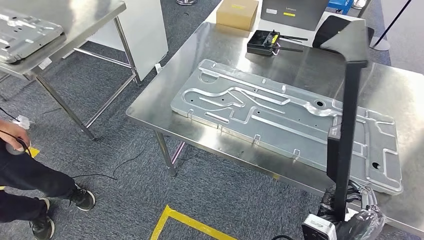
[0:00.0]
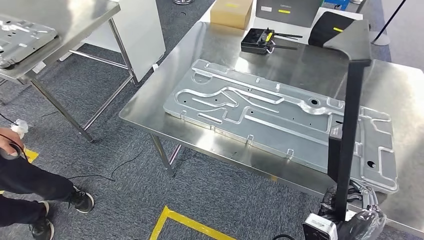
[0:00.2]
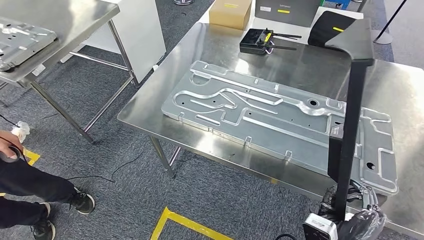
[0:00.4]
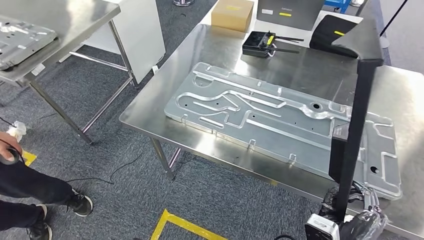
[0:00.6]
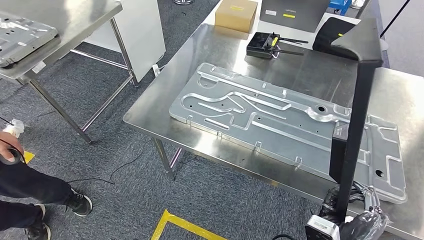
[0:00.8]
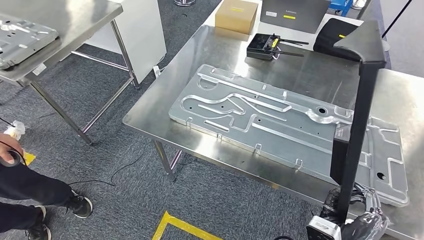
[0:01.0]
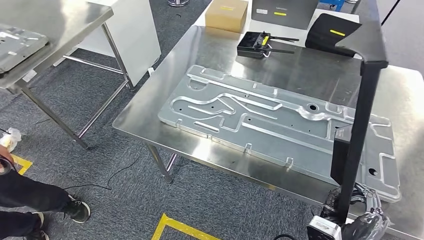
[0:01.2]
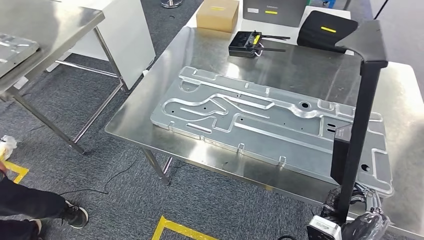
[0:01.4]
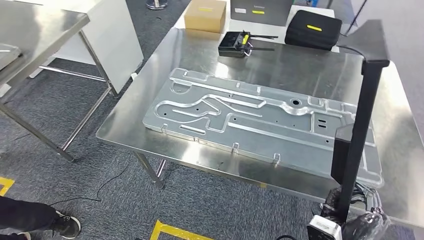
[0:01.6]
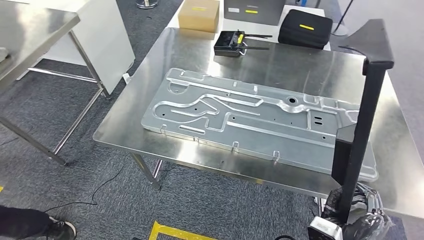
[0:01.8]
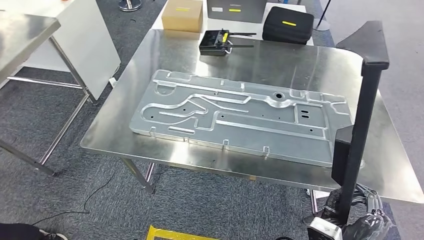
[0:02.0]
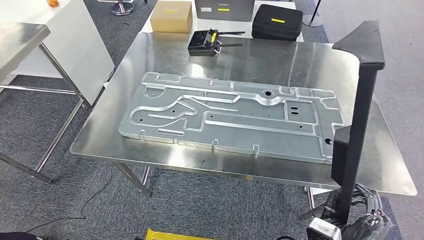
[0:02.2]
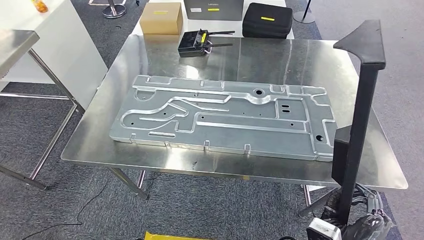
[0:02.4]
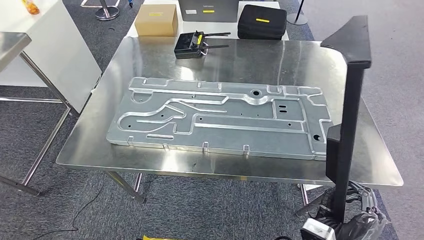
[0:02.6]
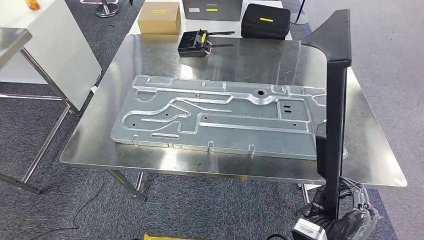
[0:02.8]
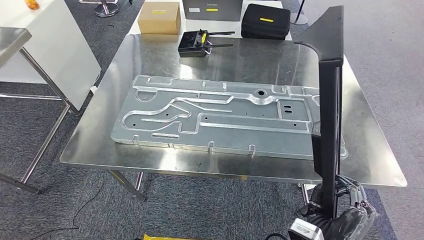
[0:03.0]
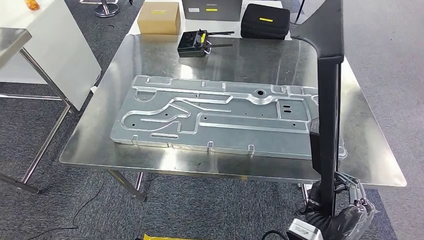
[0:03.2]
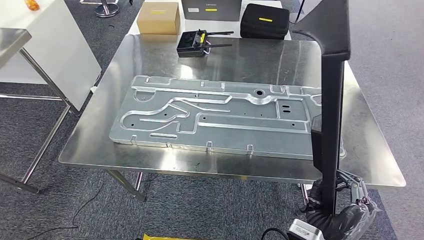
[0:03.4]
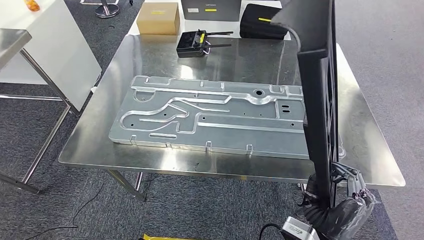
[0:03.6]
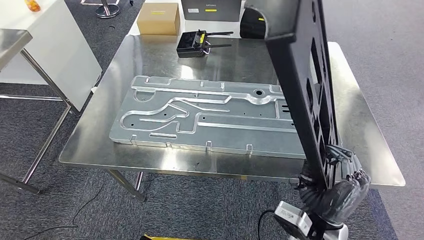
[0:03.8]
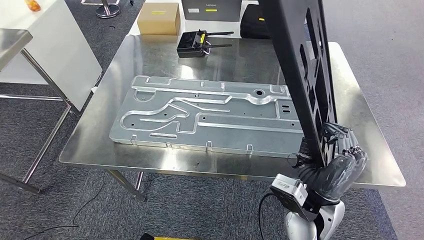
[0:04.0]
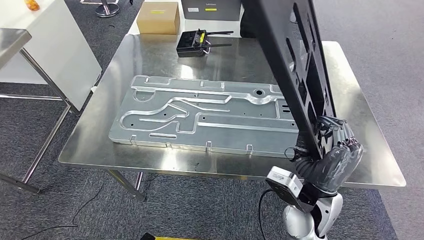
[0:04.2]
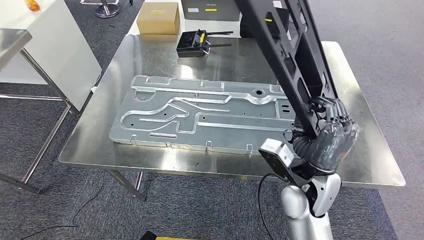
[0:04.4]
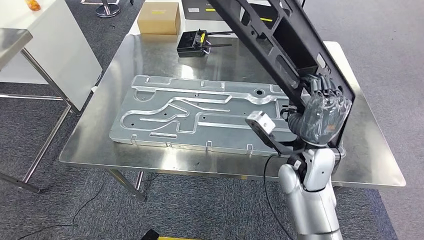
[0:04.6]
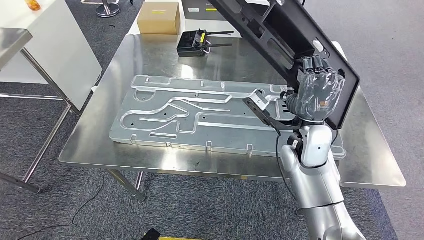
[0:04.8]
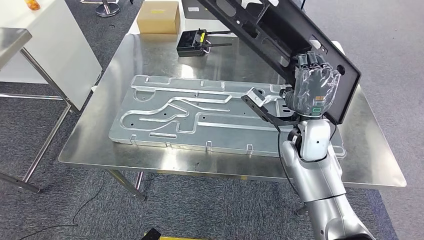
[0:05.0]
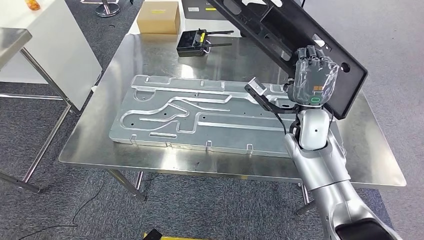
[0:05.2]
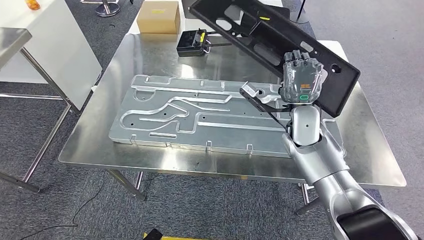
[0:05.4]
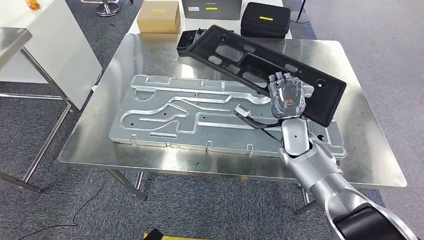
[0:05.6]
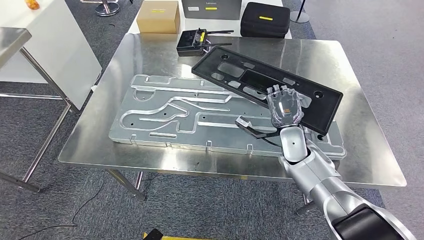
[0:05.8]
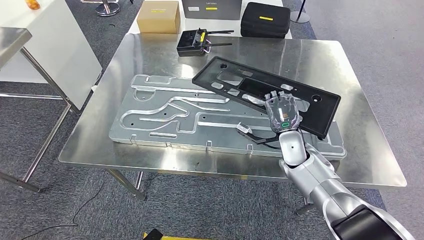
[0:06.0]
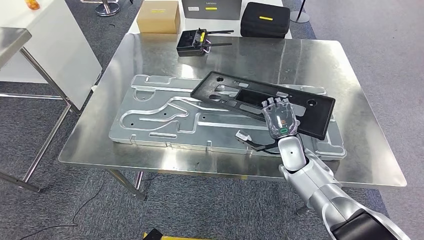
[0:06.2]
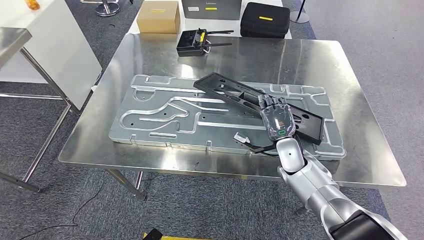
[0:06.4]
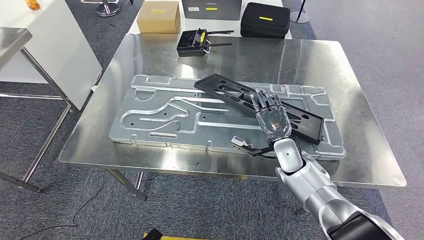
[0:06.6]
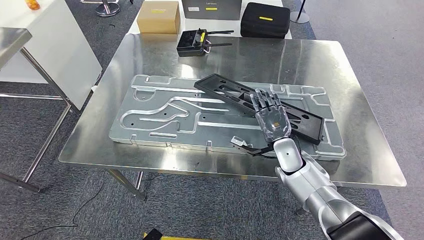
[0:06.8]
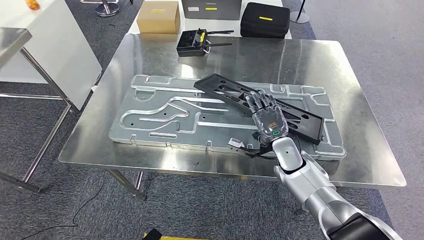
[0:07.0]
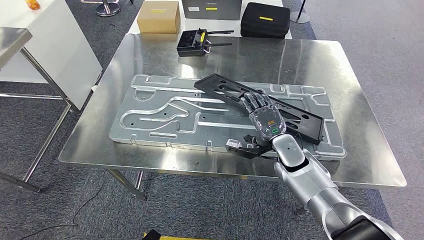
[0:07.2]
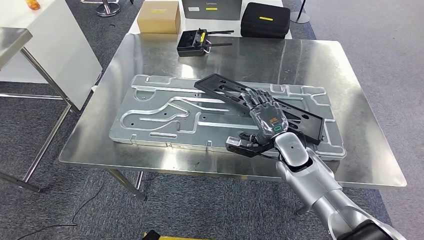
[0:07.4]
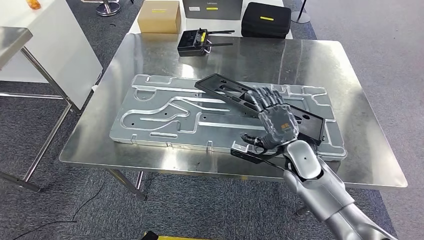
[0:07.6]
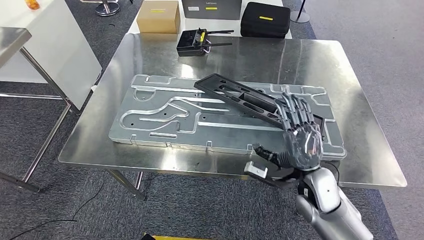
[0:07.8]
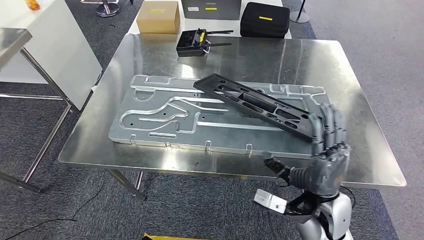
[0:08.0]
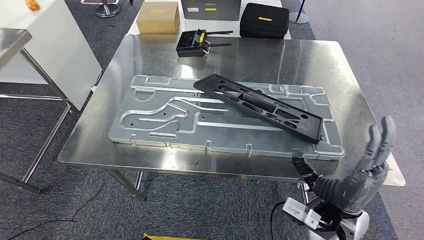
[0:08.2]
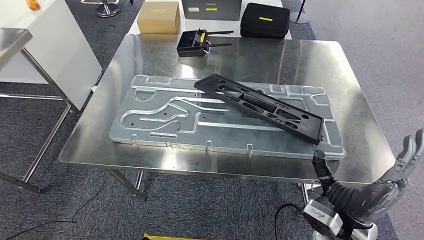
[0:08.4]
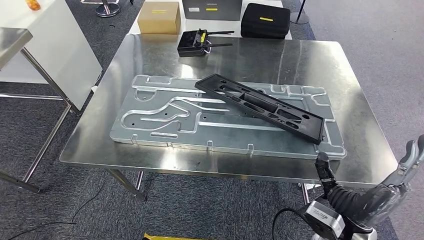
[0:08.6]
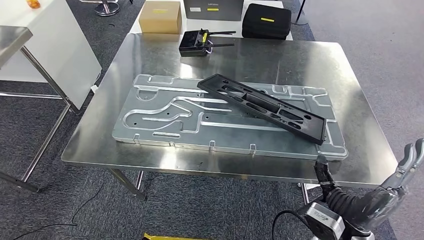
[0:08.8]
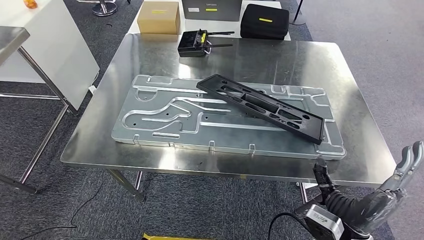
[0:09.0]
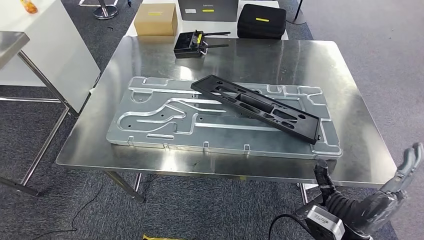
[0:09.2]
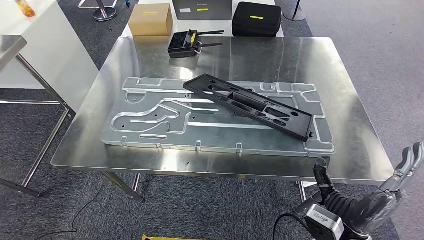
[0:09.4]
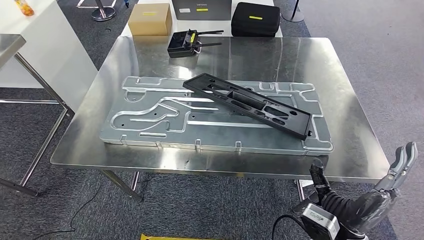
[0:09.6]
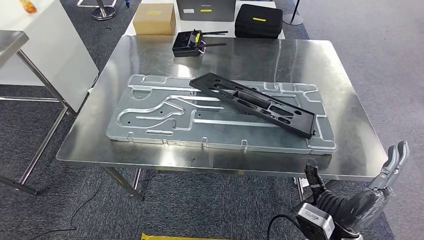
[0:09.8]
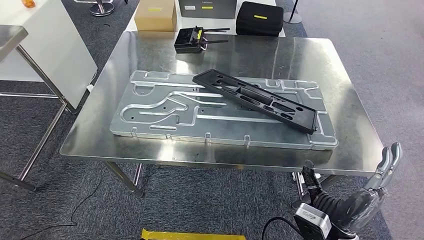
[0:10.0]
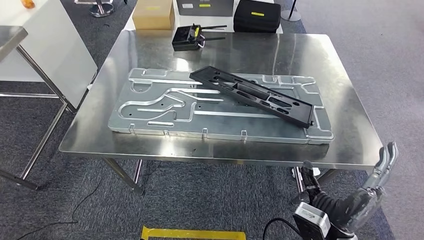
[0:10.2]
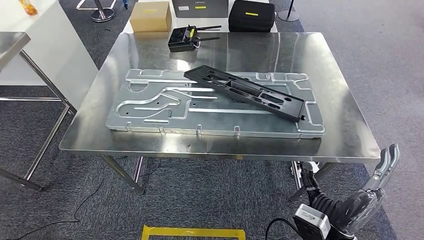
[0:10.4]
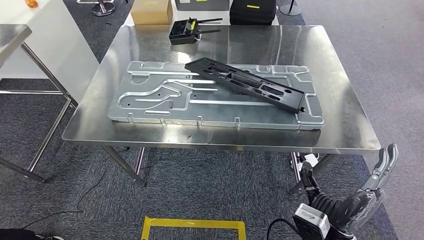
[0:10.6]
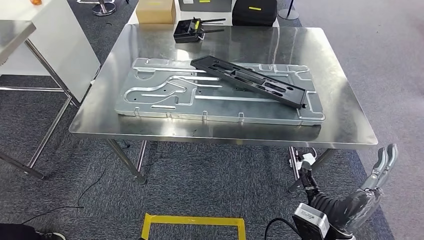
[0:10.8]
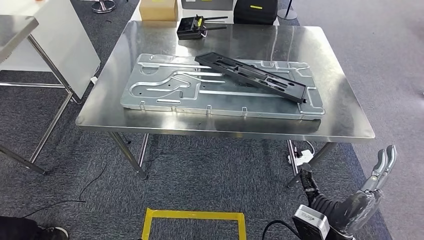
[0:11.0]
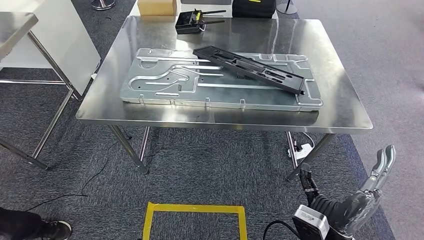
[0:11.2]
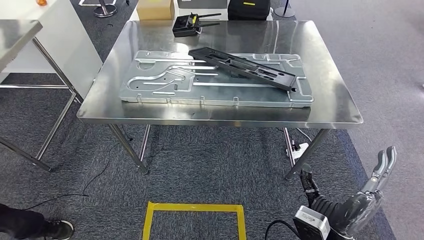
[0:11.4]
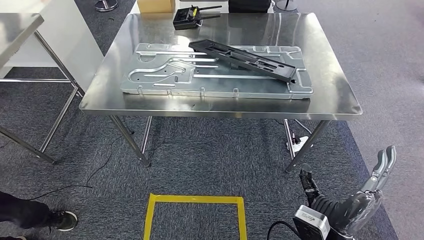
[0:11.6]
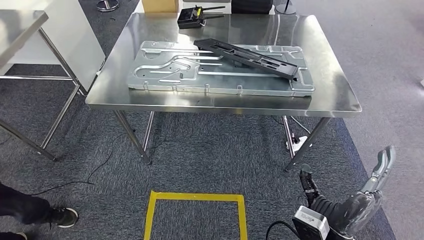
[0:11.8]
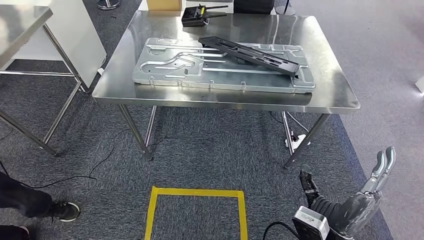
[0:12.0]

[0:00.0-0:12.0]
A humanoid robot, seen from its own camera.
Step, 0:00.0 to 0:09.6: Insert the large material into the corresponding slot on the workbench.
0:03.0 to 0:04.4: The right hand shifts approximately 15 cm forward and upward.
0:06.0 to 0:07.6: The right hand goes some 5 cm backward.
0:07.6 to 0:09.0: The right hand heads backward, covering roughly 20 cm.

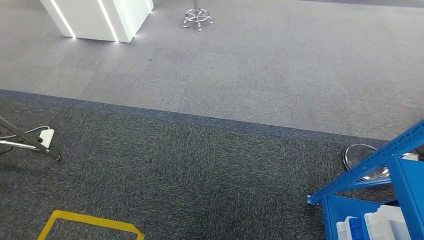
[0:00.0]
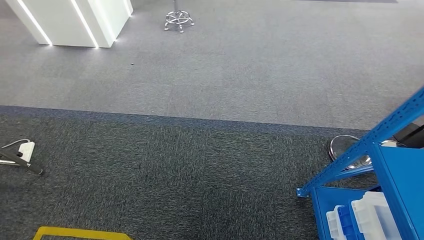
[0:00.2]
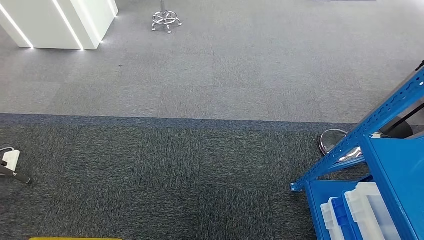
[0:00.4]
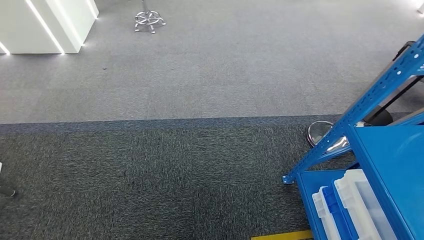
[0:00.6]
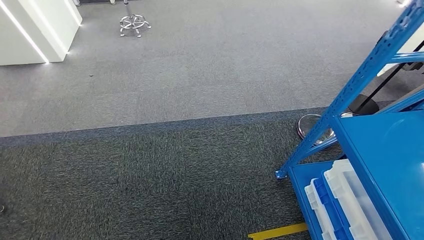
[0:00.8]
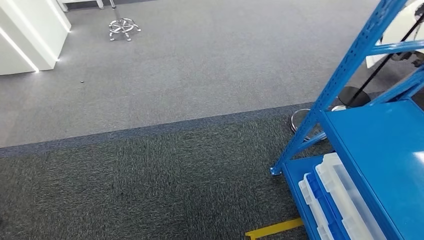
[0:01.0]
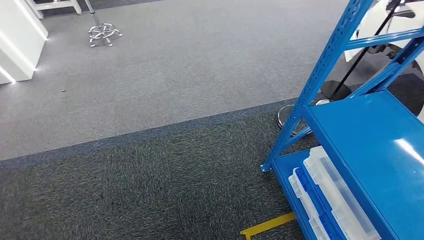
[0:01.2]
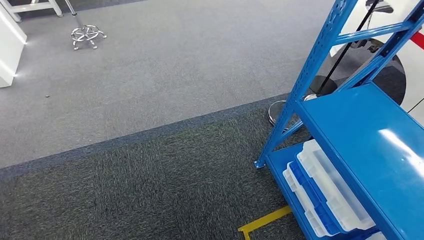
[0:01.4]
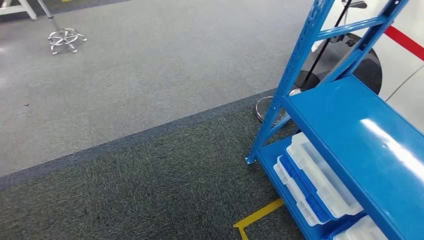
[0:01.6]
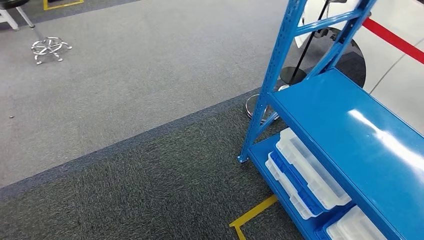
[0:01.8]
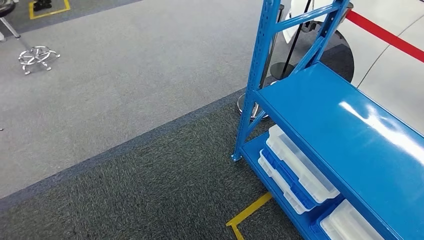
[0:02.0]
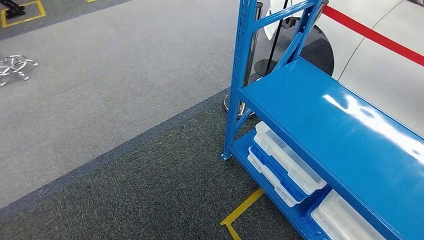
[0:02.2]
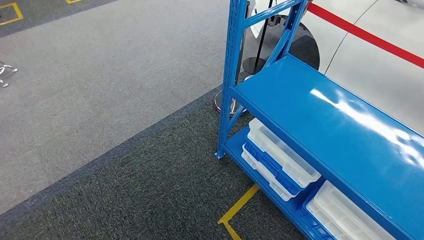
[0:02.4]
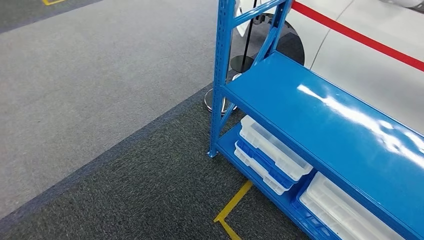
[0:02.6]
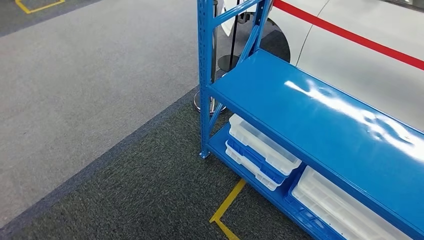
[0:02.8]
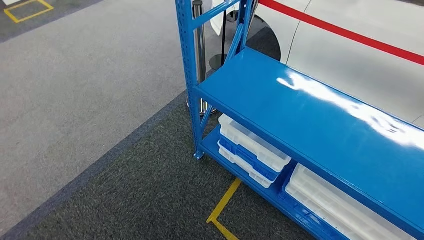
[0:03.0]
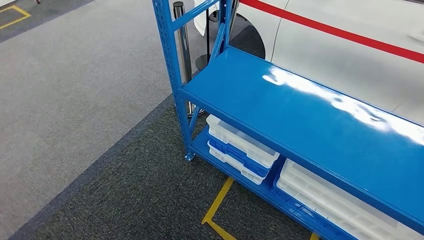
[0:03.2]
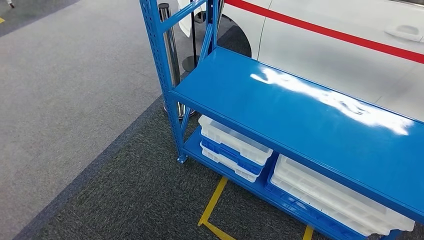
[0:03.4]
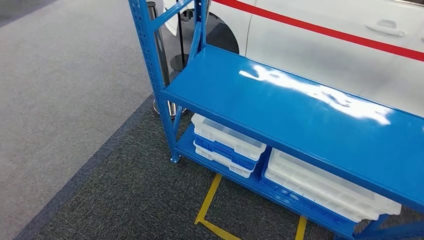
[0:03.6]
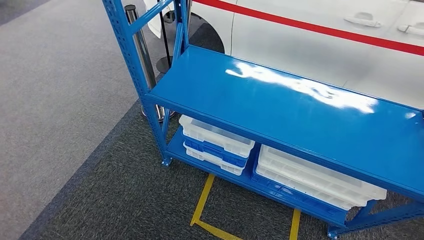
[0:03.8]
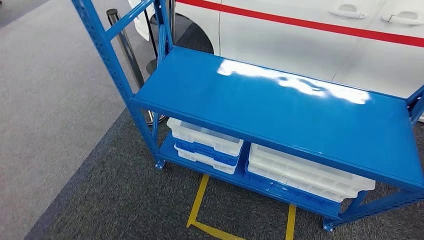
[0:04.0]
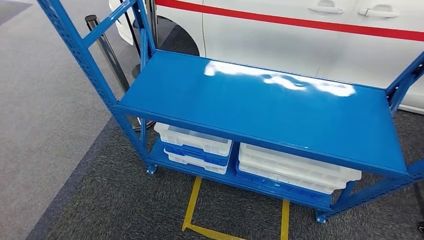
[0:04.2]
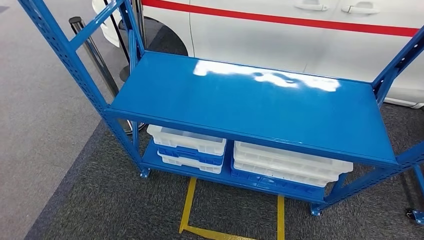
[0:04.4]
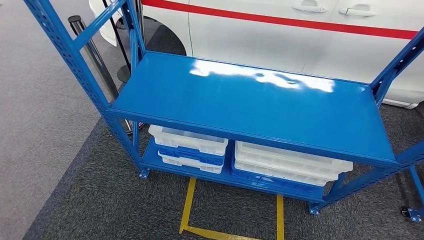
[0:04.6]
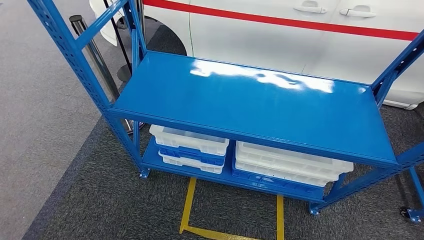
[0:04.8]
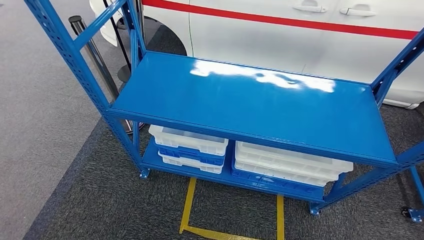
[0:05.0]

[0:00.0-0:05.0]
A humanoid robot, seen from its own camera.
Step, 0:00.0 to 0:05.0: Move to the initial position of the shelf.
